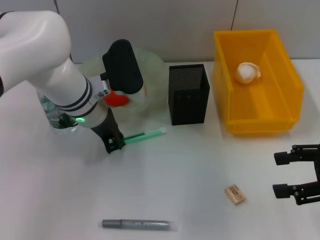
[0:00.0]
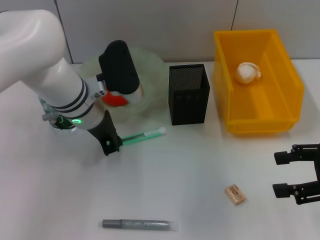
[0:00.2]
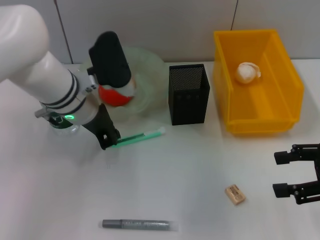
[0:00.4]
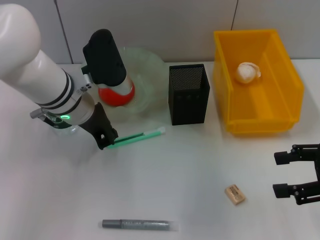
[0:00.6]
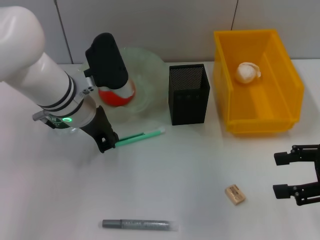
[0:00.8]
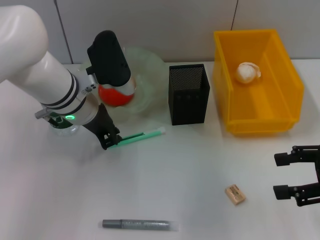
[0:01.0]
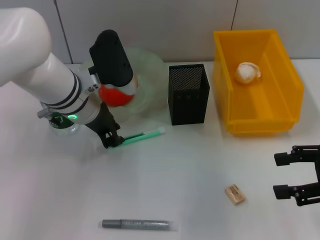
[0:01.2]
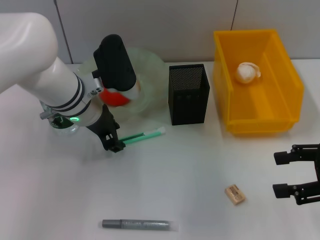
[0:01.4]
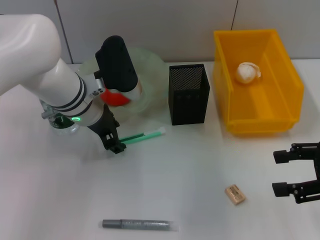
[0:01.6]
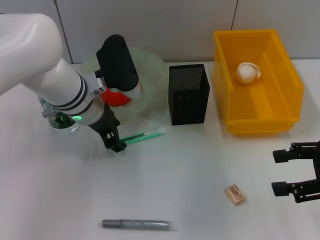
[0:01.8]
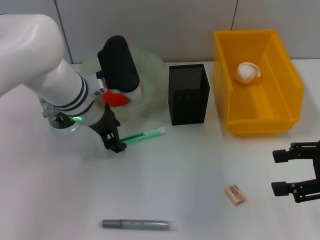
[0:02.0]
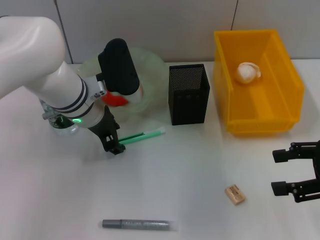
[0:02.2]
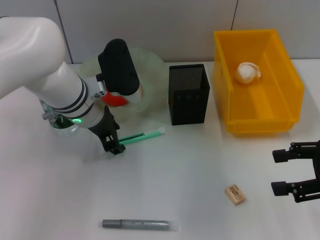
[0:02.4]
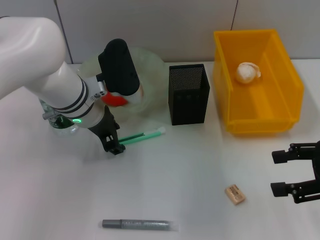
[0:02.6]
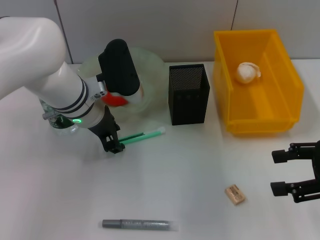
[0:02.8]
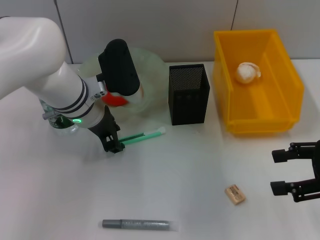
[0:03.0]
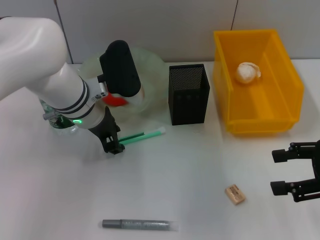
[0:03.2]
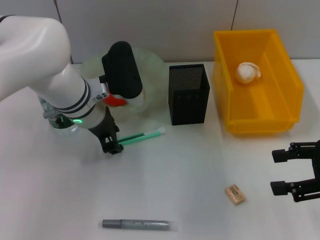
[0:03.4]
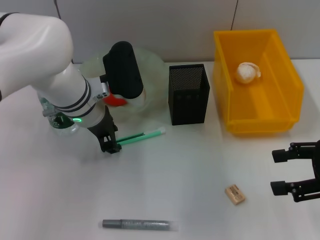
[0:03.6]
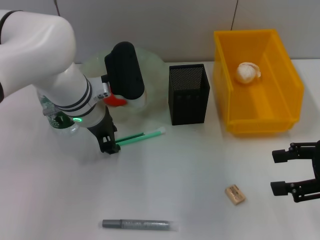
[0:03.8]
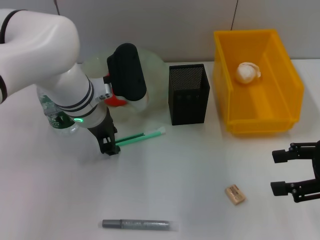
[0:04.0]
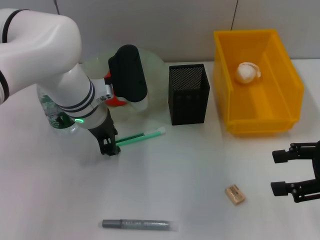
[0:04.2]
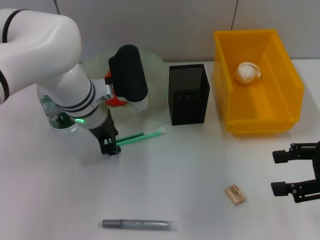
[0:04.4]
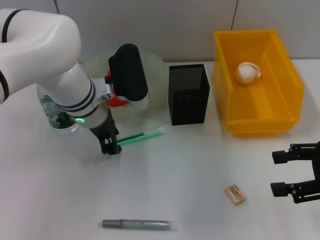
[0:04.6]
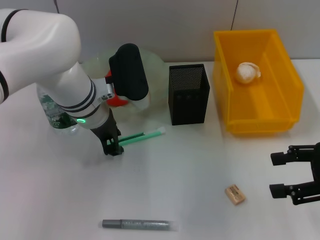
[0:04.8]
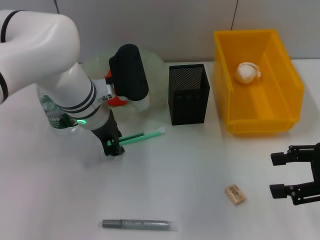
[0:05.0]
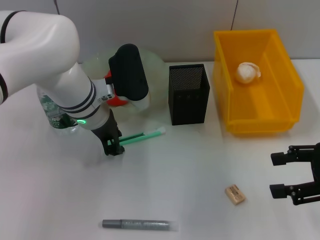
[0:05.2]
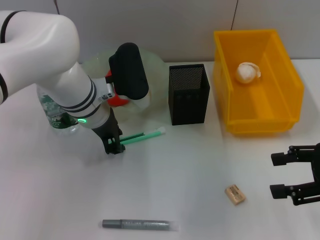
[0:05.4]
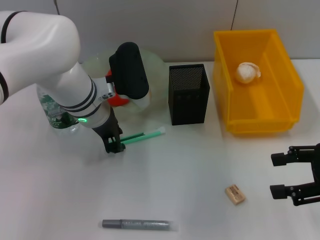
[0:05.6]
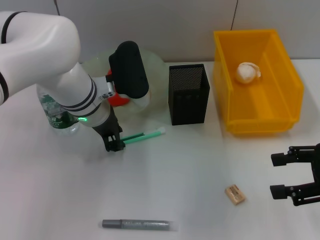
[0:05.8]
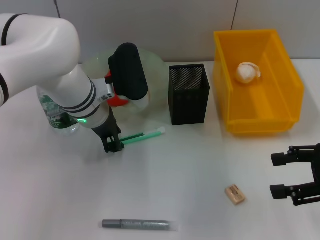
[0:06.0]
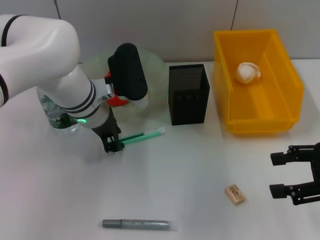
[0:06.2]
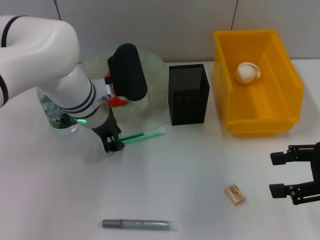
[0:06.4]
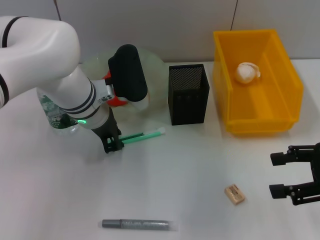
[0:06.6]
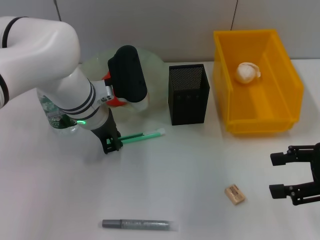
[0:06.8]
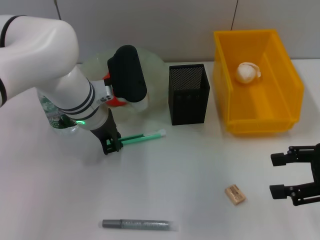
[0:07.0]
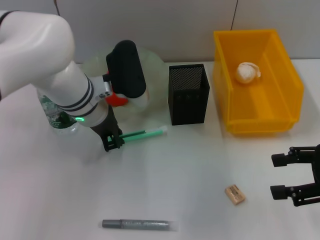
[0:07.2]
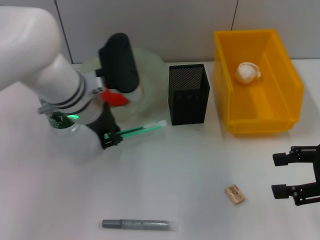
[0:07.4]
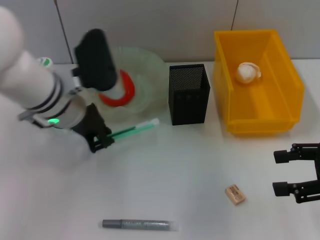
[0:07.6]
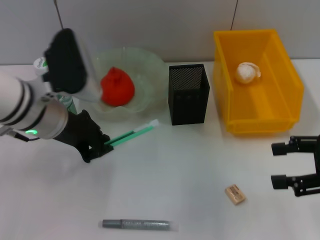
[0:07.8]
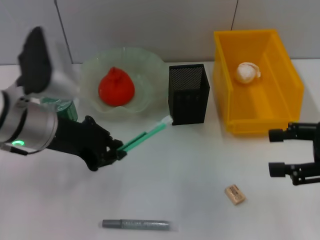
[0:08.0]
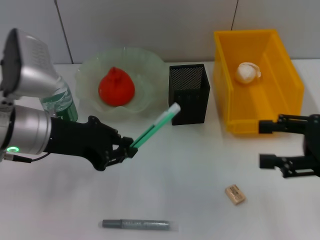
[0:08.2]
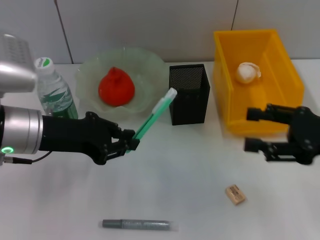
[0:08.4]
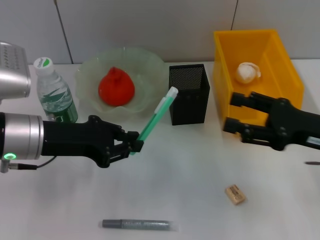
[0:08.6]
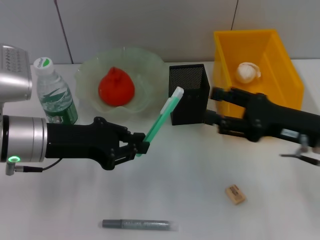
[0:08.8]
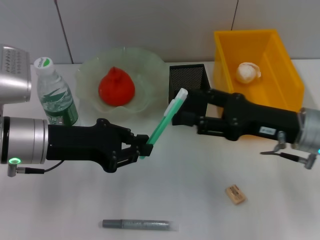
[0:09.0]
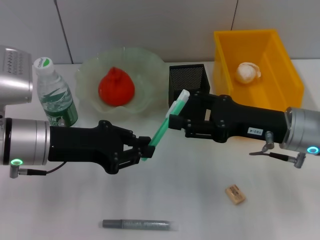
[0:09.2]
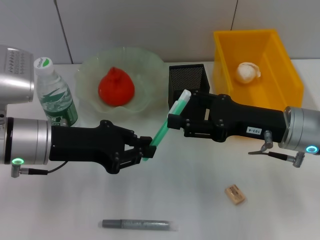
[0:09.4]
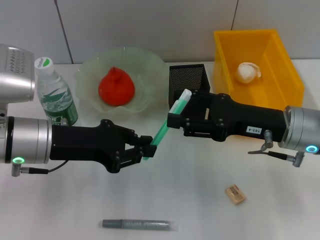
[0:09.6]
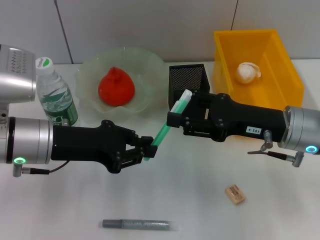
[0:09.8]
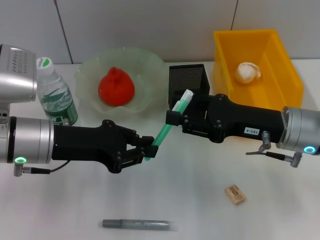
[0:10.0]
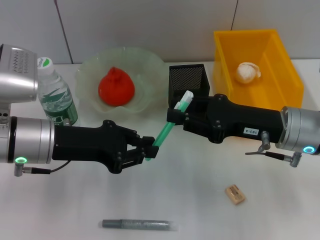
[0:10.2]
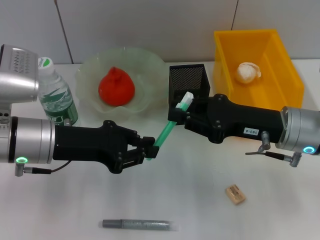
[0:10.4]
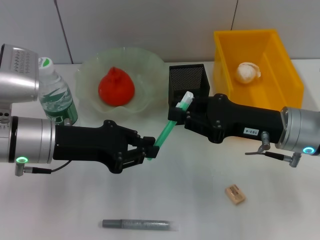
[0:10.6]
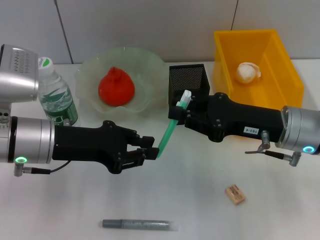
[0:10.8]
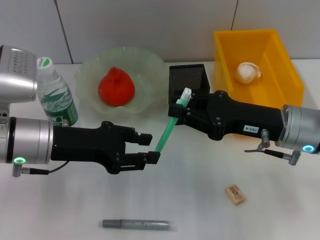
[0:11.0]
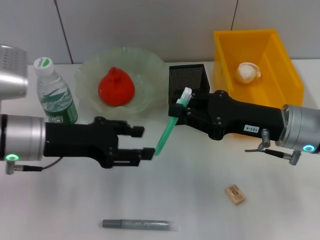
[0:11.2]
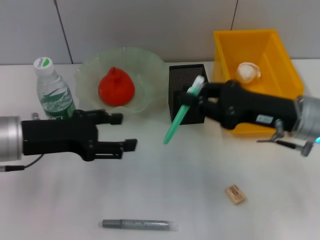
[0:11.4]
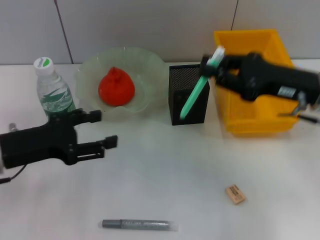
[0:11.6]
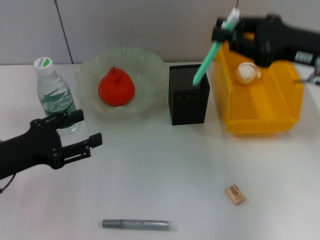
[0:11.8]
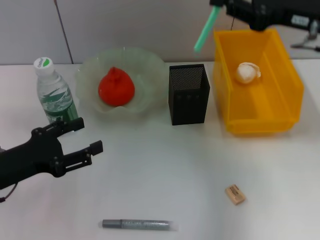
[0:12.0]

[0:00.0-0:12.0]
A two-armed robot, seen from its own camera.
Step, 0:00.0 to 0:06.8: Grab the blue utility knife with the left hand.
Step, 0:07.2 to 0:10.8: Pass the blue utility knife from the left hand to the right hand.
0:00.0 to 0:01.6: There are only small adjustments of the grippers.
0:01.6 to 0:03.0: The two grippers keep their place.
0:03.0 to 0:04.4: The grippers make only small movements.
0:04.4 to 0:06.0: Both grippers stay put.
0:06.0 to 0:07.6: The left gripper moves about 5 cm.
0:07.6 to 0:09.0: The right gripper is displaced to the left and forward by roughly 10 cm. Meanwhile the left gripper shifts some 10 cm backward and to the left.
0:09.0 to 0:10.4: The right gripper closes.
0:10.4 to 0:12.0: The left gripper moves to the left, backward and downward, about 10 cm, and opens its fingers. The right gripper travels upward and forward by some 15 cm.

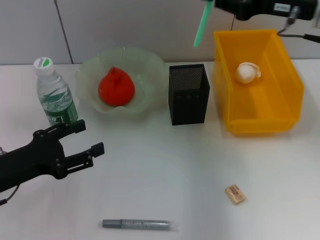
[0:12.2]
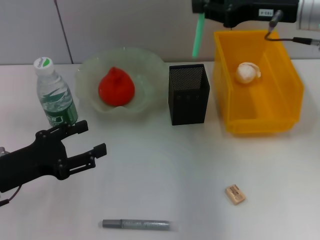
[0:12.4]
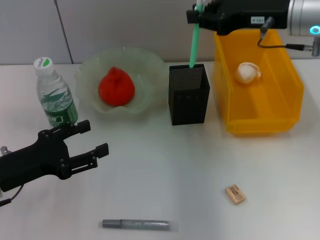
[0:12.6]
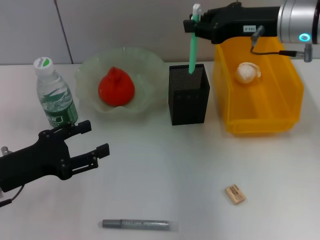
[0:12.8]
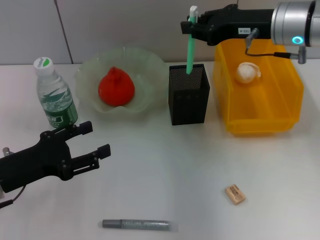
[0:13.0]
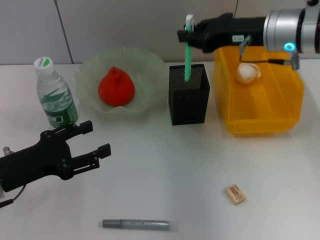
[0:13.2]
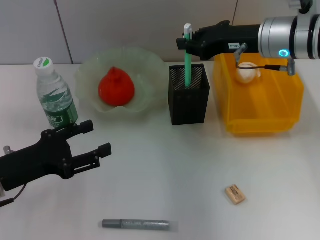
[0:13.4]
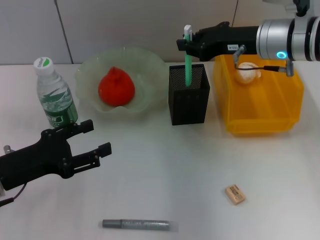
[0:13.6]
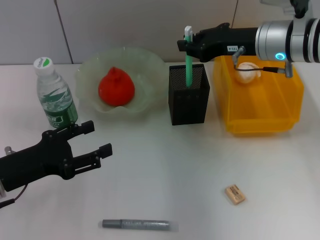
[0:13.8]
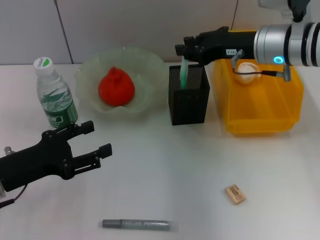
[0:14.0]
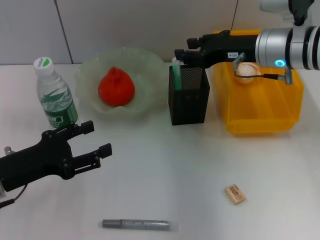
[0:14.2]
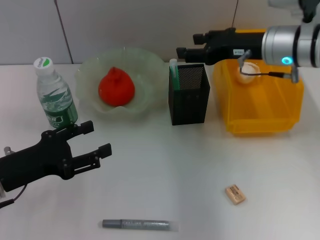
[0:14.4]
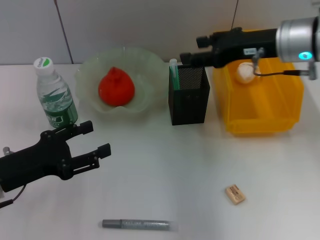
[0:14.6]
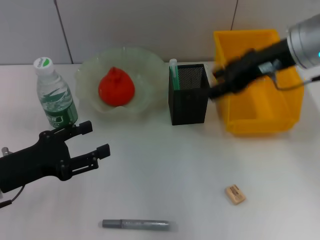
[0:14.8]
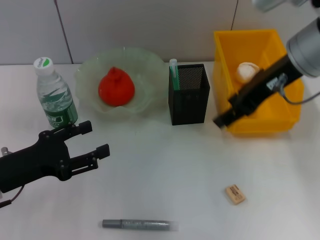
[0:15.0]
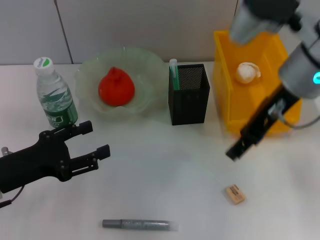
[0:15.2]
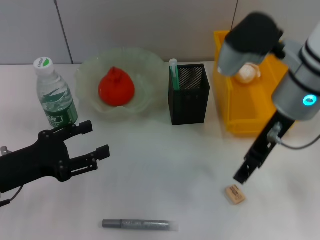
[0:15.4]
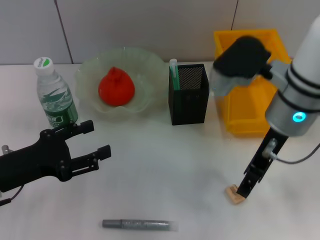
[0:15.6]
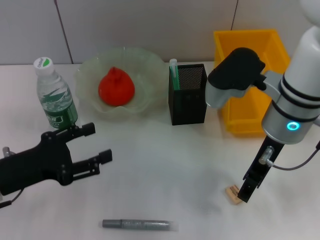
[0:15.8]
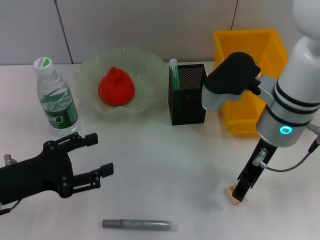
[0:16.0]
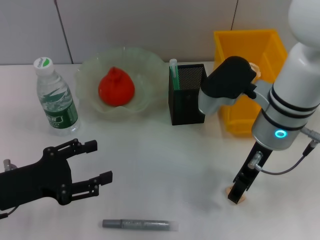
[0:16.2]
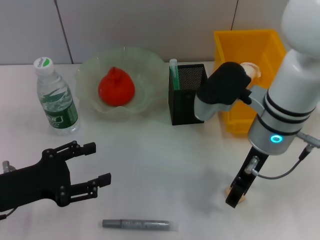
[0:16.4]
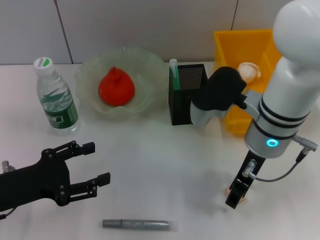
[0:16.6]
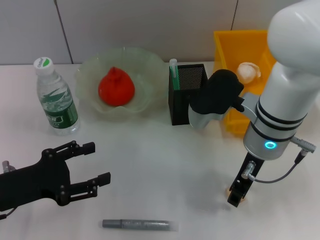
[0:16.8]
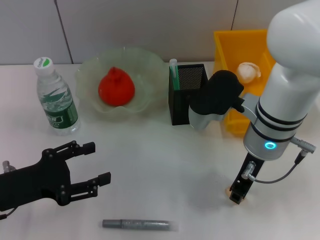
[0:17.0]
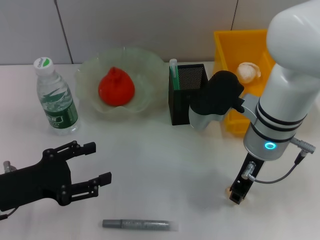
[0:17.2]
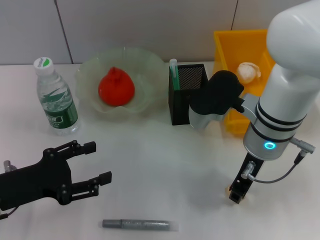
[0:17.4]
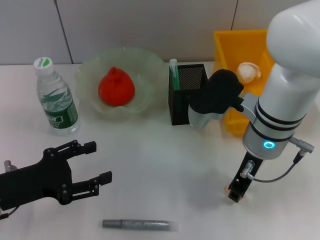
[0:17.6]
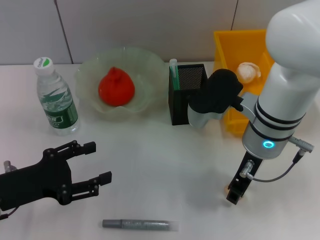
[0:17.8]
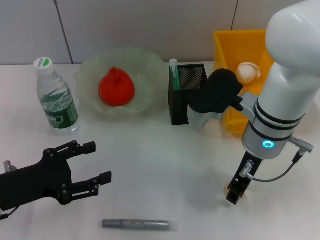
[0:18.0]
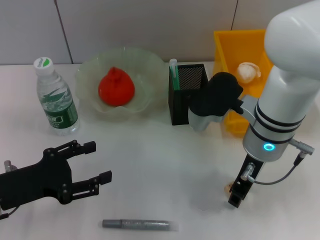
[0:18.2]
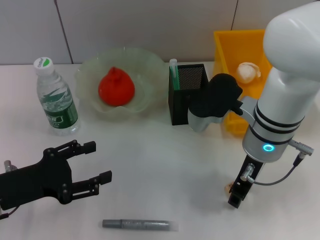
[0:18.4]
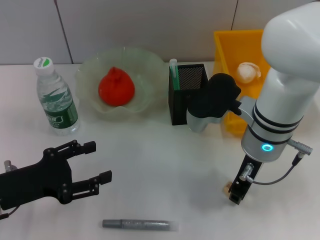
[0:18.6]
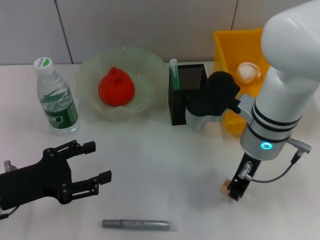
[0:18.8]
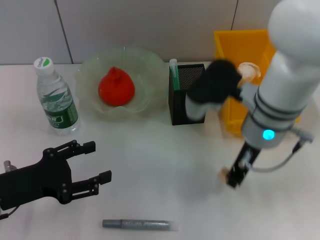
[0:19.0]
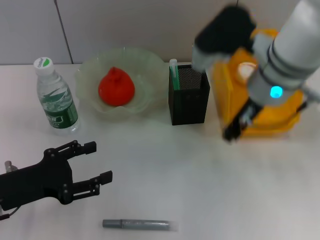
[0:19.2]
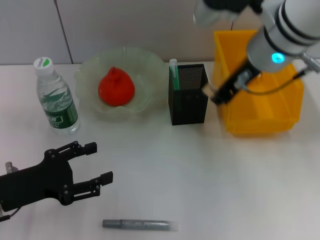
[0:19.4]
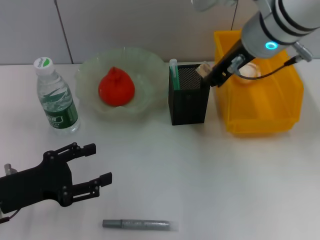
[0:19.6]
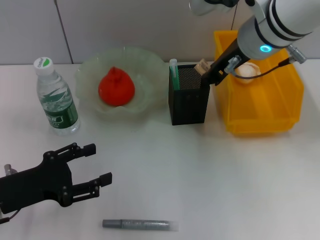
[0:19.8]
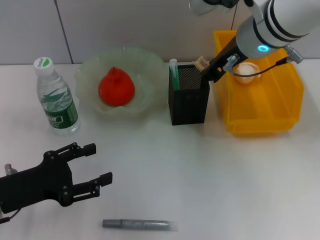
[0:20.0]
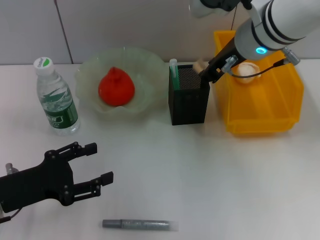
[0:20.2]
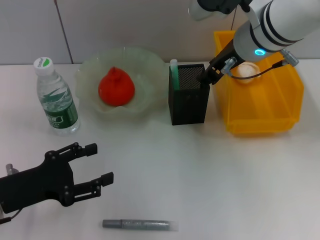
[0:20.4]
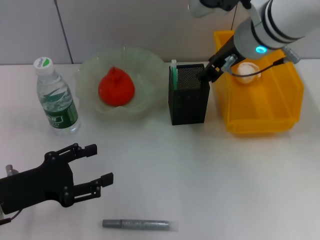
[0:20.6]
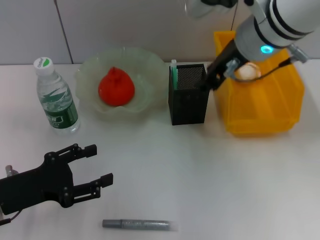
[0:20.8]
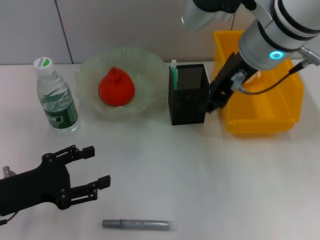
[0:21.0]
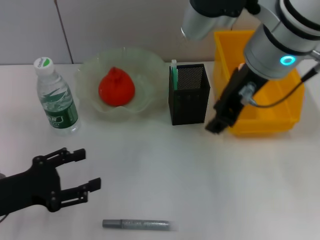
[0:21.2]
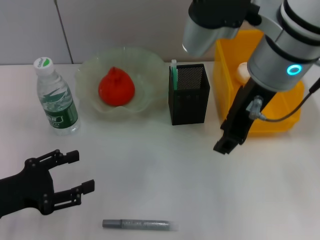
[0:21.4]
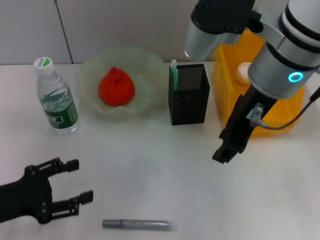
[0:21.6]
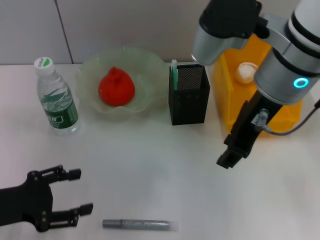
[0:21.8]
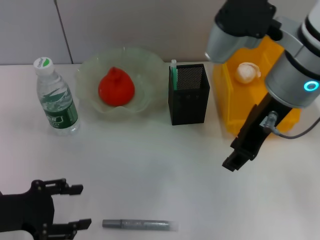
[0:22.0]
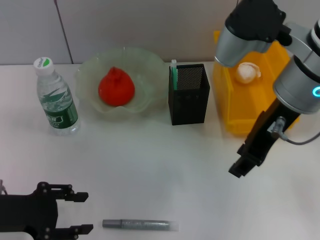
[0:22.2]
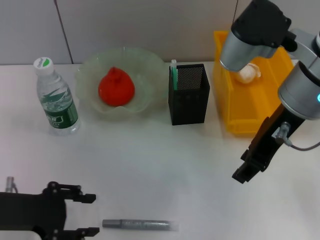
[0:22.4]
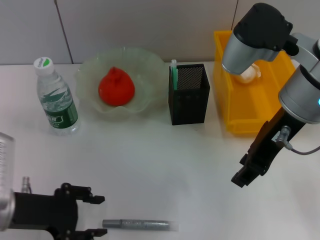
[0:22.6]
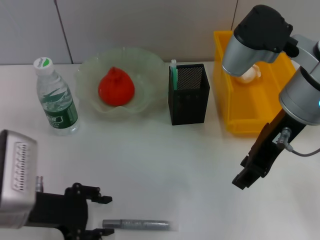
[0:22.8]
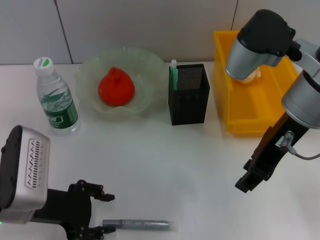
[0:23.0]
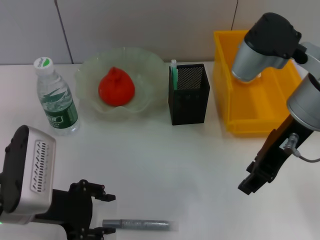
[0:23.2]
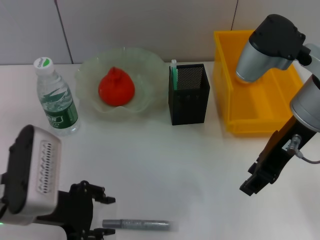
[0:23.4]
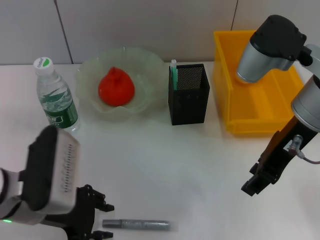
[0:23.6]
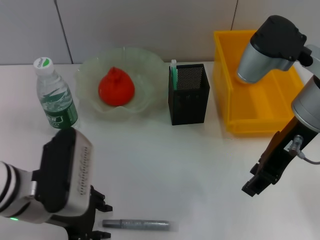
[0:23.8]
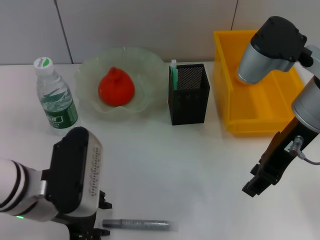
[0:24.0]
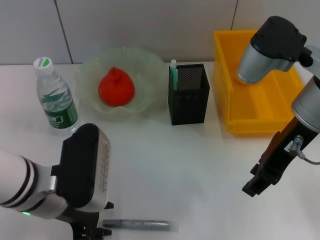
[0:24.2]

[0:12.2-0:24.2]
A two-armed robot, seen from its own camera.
Step, 0:12.2 to 0:14.2: Place the blue utility knife into the pen holder with the right hand.
Step, 0:14.4 to 0:18.6: Grab the eraser with the right hand.
Step, 0:18.8 to 0:20.2: Put the eraser into the pen holder with the right hand.
0:12.2 to 0:13.8: The right gripper goes approximately 5 cm downward.
0:13.8 to 0:15.2: The right gripper goes about 10 cm backward and upward, and opens its fingers.
0:15.2 to 0:16.6: The right gripper shifts roughly 10 cm downward.
0:16.6 to 0:18.2: Both grippers stay about where they are.
0:18.2 to 0:19.8: The right gripper moves upward and forward, roughly 10 cm.
0:19.8 to 0:21.2: The right gripper moves backward, some 5 cm.
0:21.2 to 0:22.6: The right gripper shifts by approximately 5 cm.
0:22.6 to 0:24.2: The left gripper goes roughly 10 cm to the right.
